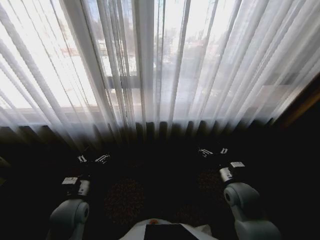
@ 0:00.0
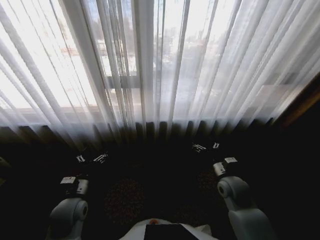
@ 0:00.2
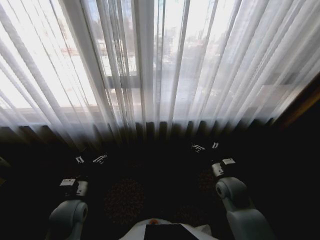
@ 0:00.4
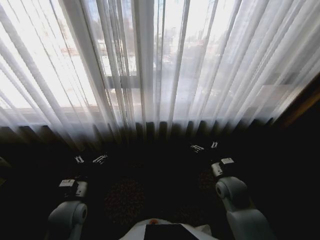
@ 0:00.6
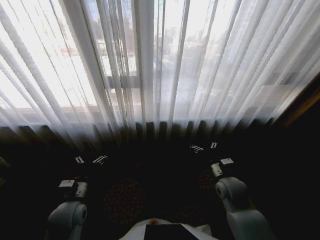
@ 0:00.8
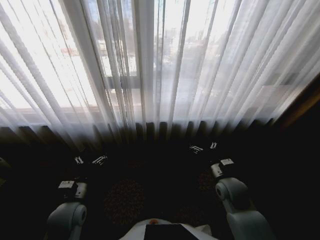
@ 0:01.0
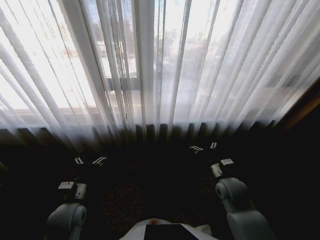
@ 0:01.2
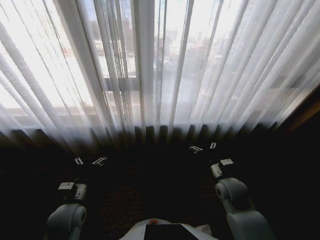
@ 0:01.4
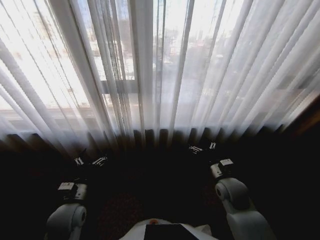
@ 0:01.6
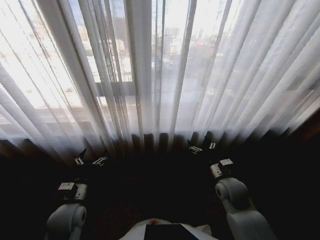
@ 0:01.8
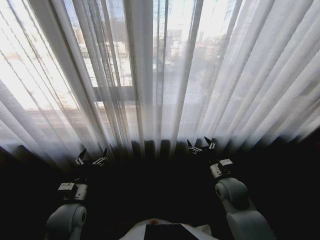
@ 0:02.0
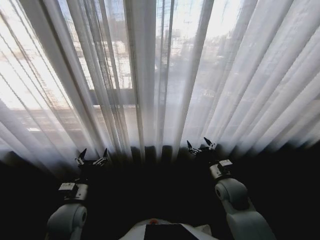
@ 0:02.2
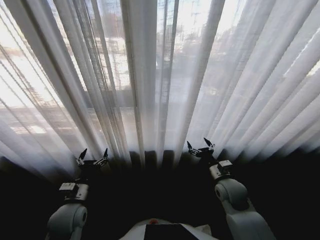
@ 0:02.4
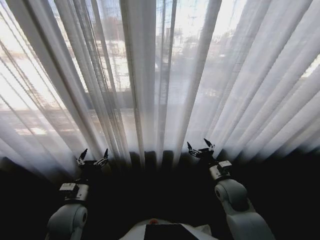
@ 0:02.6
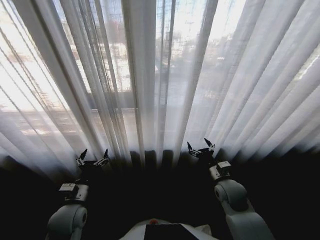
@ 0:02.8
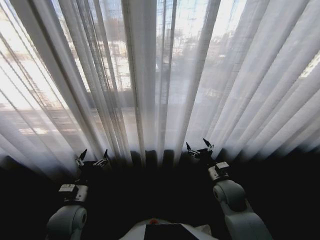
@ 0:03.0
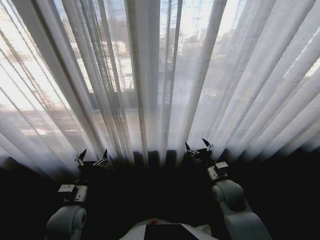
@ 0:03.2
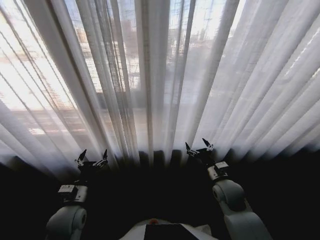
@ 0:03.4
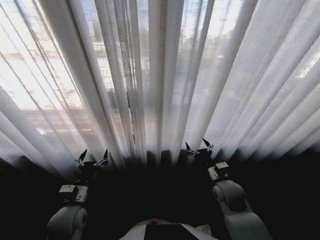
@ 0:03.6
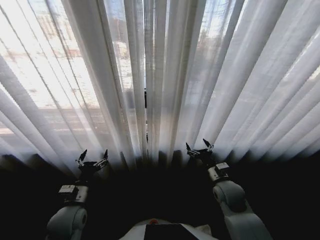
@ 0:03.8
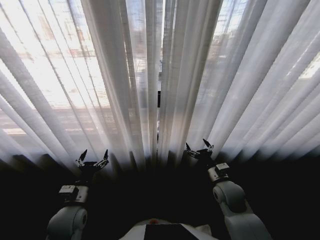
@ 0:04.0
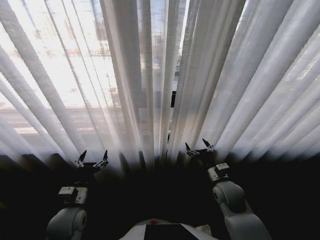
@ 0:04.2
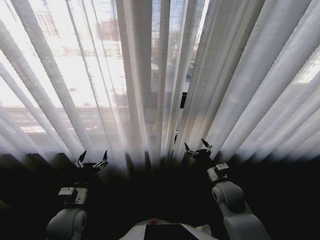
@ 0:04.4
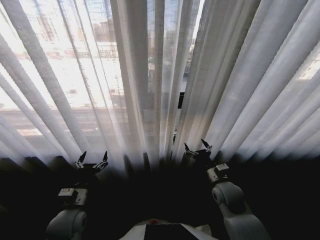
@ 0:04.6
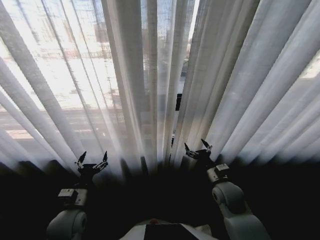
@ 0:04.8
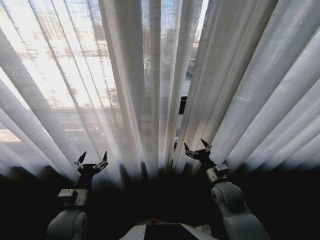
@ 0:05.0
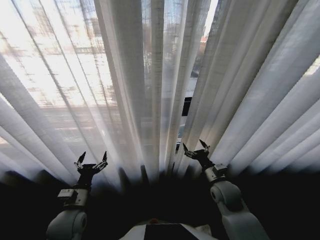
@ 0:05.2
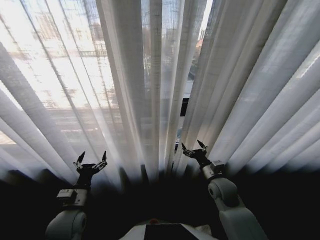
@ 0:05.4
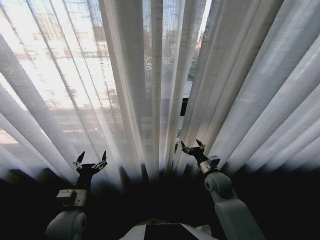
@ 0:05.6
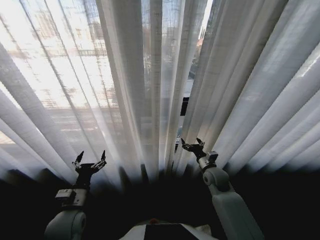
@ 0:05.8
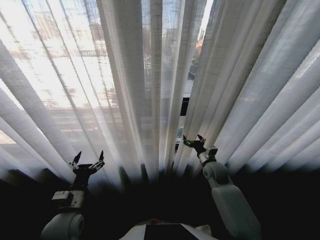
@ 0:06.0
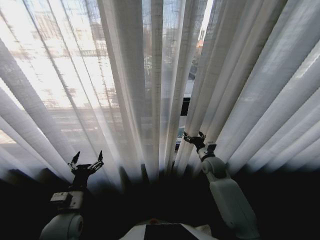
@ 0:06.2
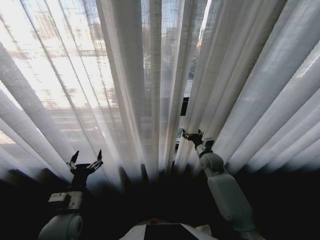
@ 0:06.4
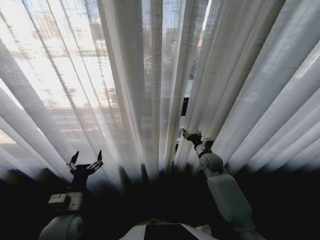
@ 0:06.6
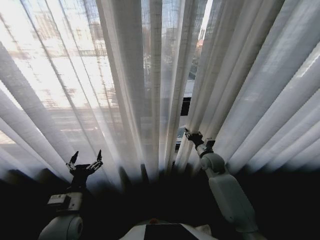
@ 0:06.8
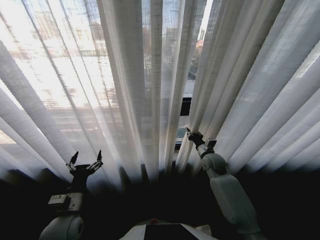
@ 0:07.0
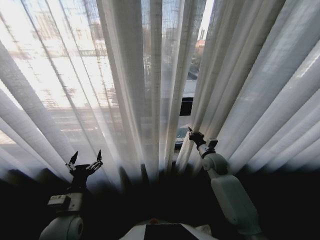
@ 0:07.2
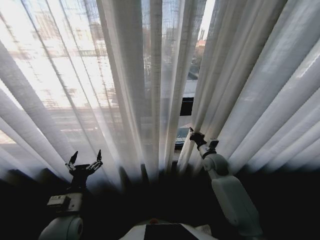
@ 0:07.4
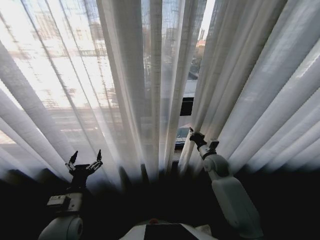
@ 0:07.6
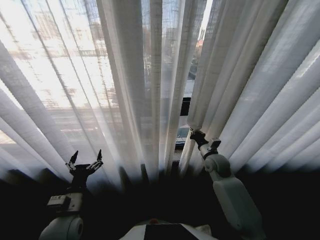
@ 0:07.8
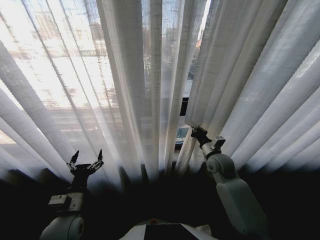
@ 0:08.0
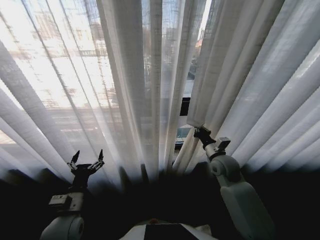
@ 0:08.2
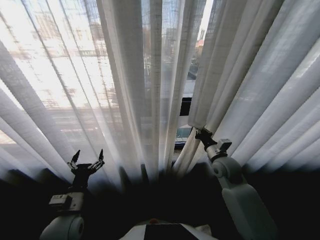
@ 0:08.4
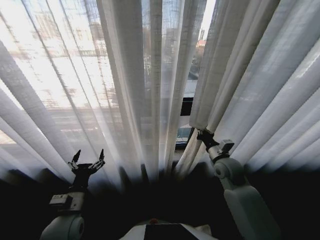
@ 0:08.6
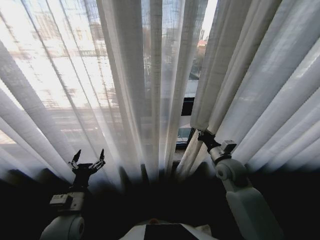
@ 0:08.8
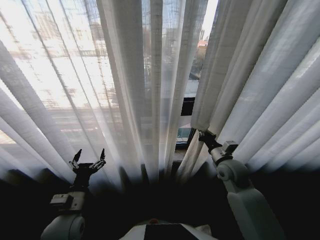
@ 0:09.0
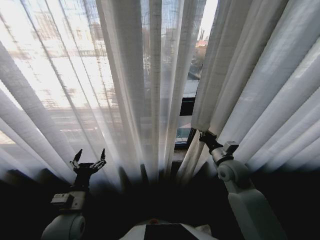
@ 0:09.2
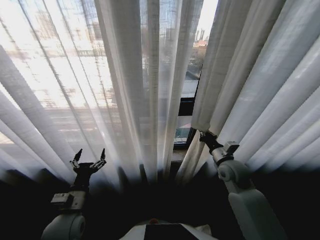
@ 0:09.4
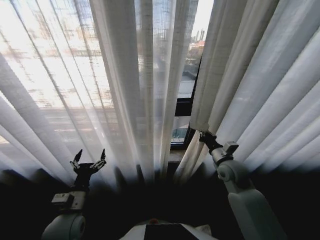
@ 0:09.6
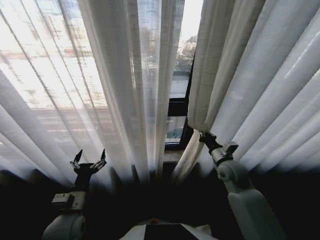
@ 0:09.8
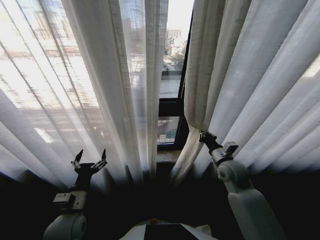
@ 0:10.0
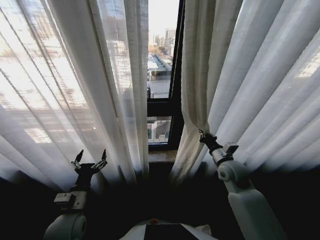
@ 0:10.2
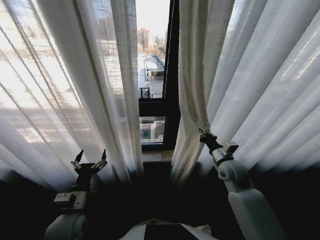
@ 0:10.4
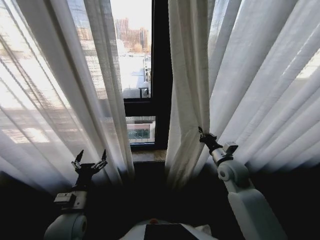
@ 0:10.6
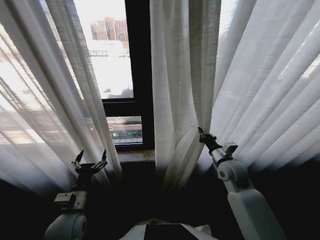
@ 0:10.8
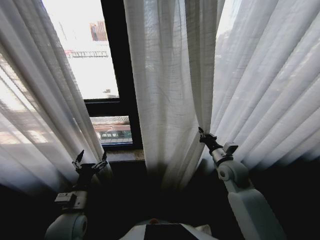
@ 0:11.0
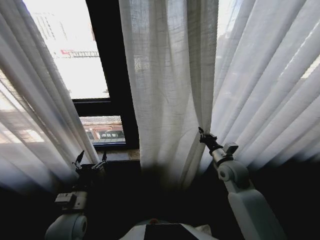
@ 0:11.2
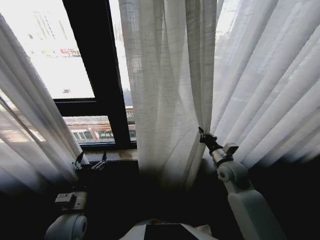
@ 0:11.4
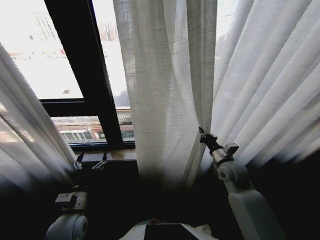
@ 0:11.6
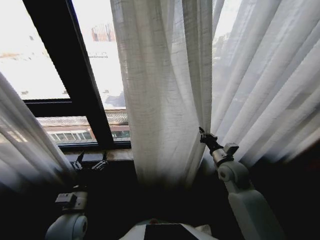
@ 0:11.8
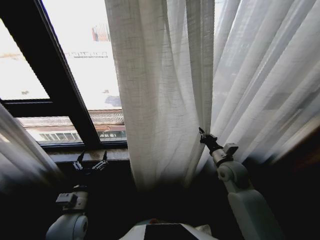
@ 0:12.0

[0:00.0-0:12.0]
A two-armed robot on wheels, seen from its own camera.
Task of the whole recording: Open the curtains by pulling them apart, changing their state from closed to fully open.
0:04.4 to 0:06.0: The right gripper shifts roughly 10 cm forward.
0:06.0 to 0:07.6: The right gripper closes.
0:07.6 to 0:09.0: The right gripper is displaced backward and upward by approximately 10 cm.

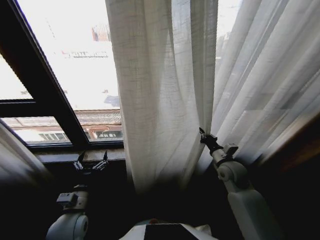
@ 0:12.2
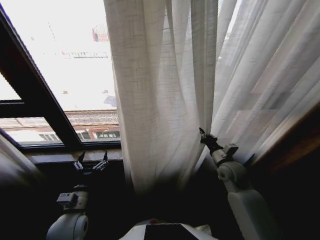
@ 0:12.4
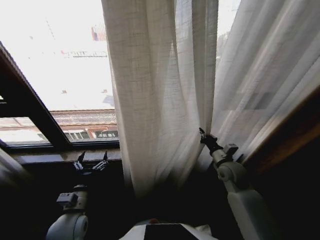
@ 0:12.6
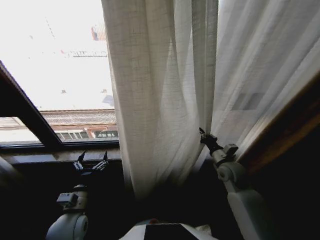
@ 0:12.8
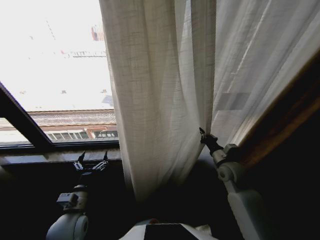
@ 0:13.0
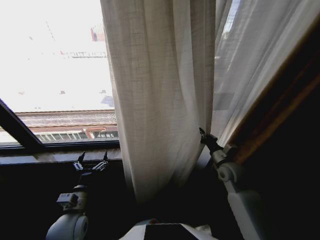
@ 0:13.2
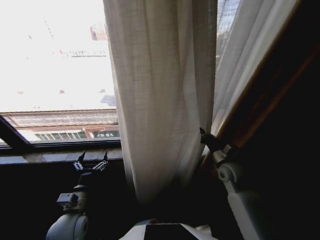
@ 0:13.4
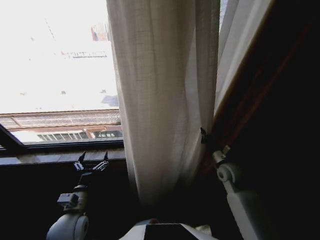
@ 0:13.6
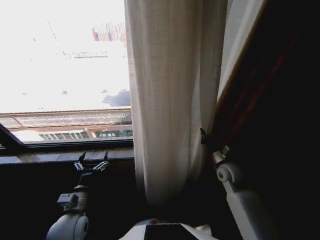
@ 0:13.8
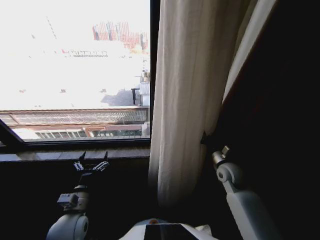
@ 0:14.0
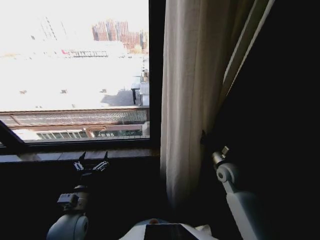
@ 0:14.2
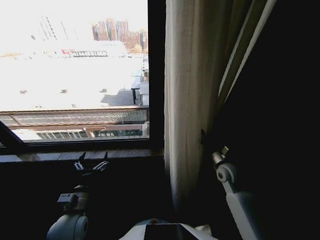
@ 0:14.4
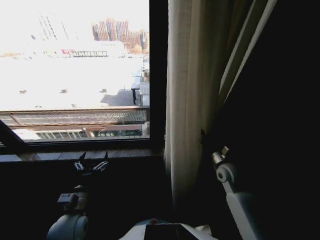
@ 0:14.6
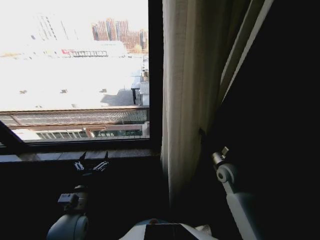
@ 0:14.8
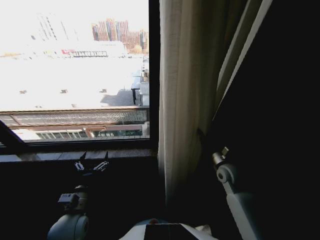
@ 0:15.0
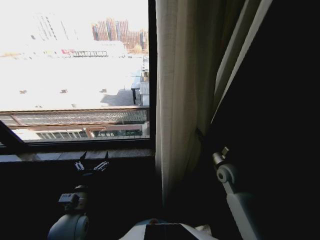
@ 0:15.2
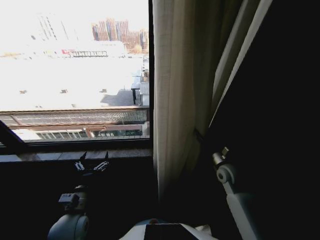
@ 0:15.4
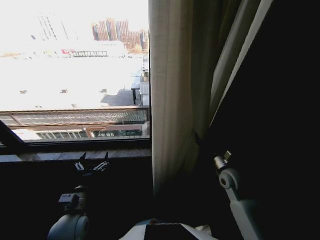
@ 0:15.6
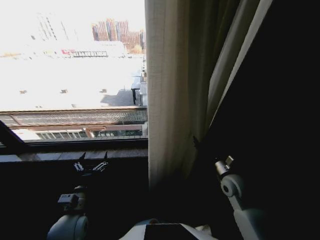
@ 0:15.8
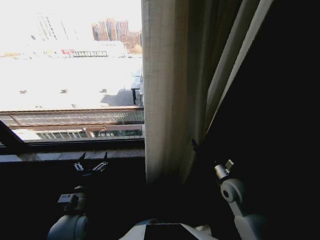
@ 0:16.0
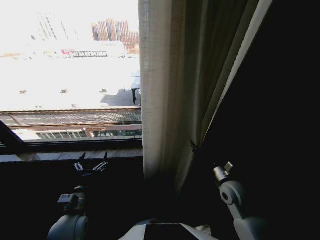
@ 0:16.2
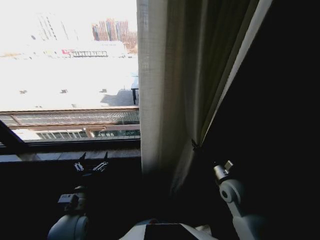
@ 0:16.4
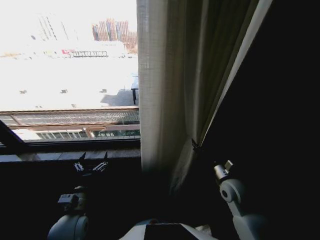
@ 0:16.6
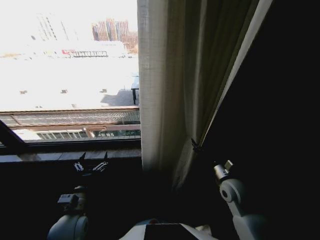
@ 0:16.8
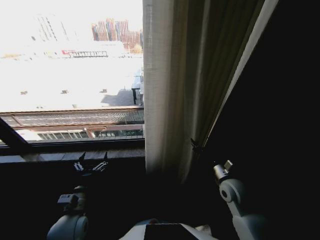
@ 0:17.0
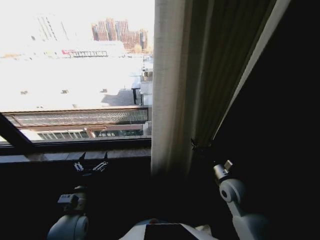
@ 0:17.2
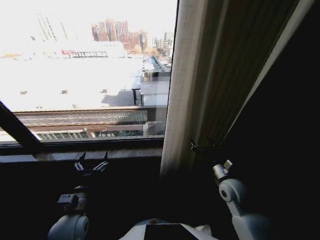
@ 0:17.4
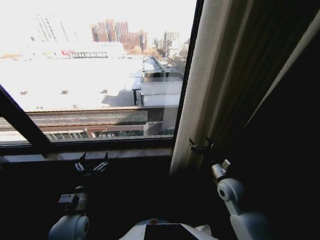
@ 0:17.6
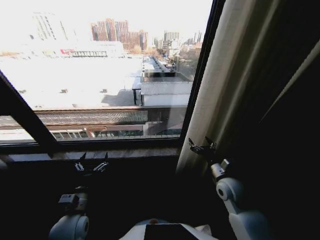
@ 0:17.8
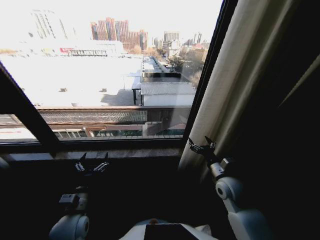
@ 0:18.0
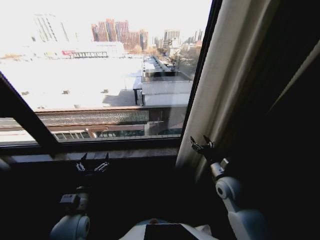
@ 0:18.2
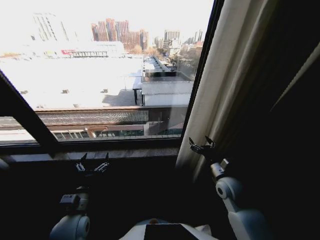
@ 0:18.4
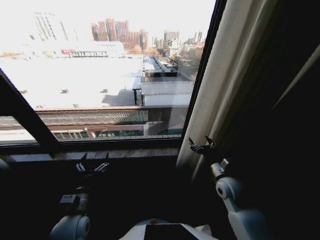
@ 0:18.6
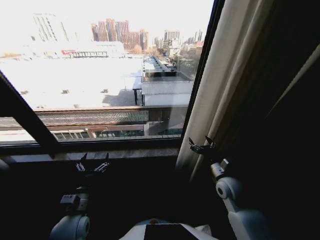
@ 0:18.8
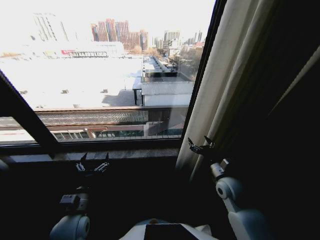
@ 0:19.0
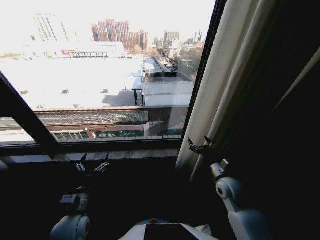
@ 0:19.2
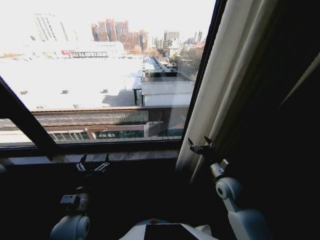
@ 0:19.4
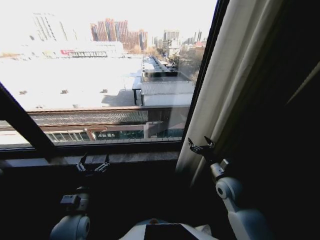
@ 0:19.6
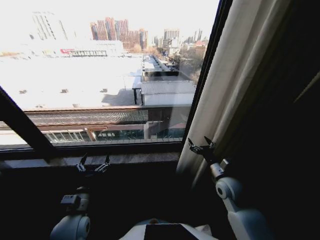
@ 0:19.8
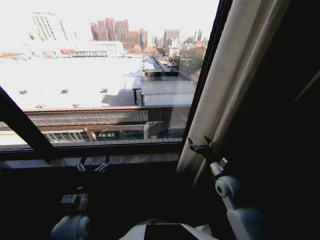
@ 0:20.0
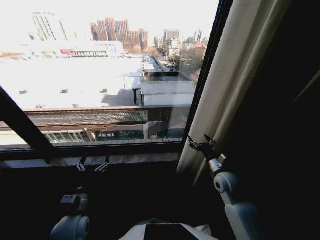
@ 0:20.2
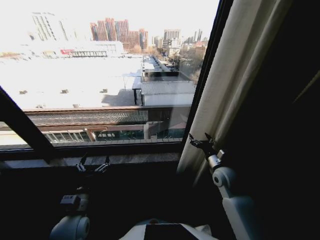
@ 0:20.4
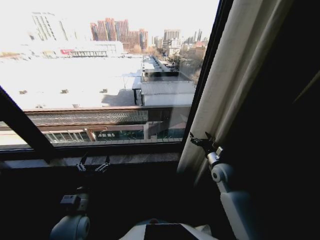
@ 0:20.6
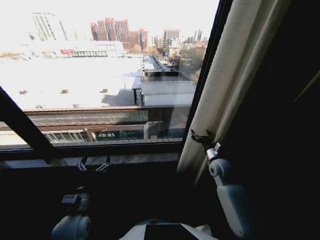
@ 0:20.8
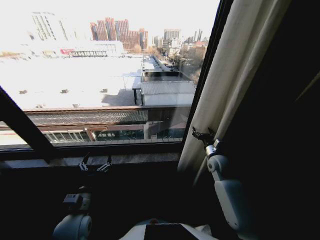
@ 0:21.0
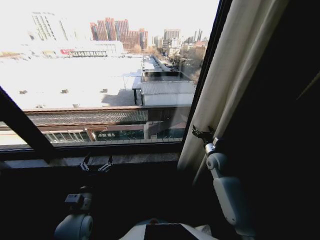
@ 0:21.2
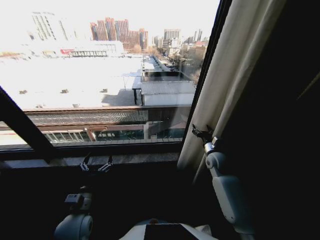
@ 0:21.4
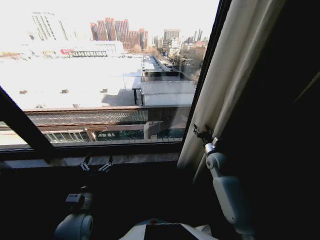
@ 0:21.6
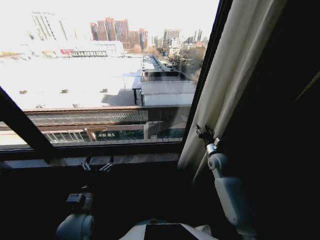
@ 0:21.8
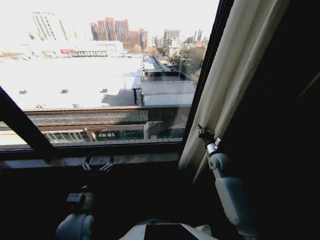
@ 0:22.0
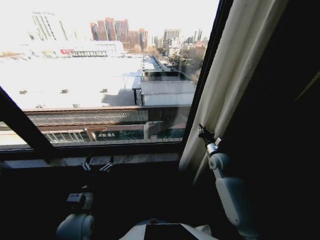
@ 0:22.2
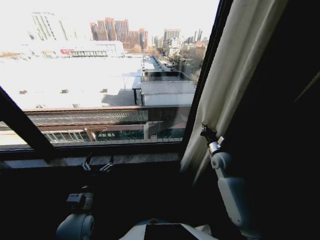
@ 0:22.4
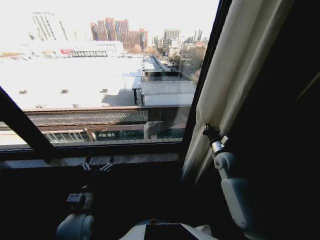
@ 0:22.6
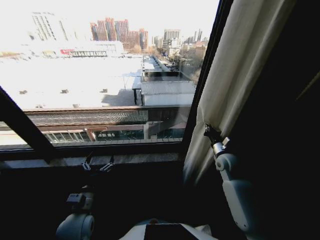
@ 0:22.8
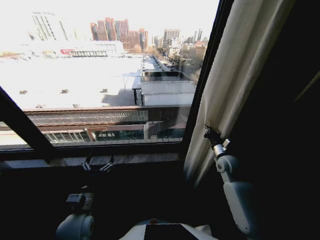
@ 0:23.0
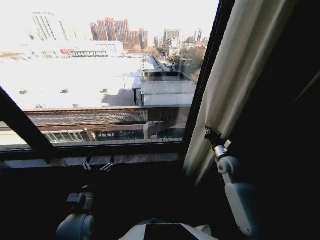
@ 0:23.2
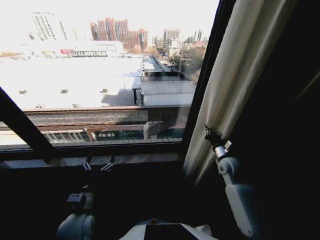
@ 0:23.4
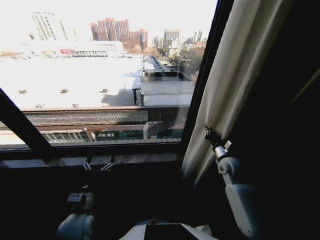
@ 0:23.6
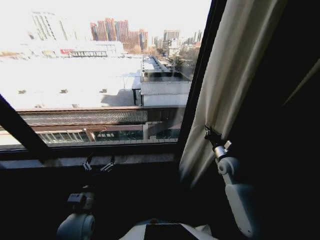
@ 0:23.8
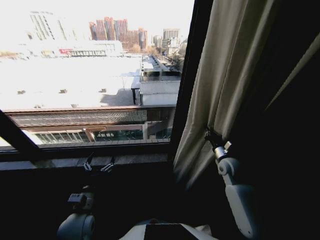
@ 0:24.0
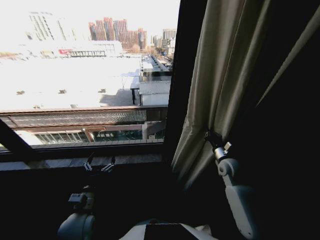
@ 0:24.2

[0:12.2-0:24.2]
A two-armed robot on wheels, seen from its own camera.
Task of the whole recording: Open the curtains by pulling them apart, changing their state from closed to fully open.
0:13.8 to 0:15.2: The right gripper opens up.
0:15.2 to 0:16.6: The right gripper moves backward, about 5 cm, and opens up.
0:18.2 to 0:19.8: Both grippers stay put.
0:19.8 to 0:21.2: The right gripper goes some 10 cm forward.
0:21.2 to 0:22.6: The right gripper closes up.
